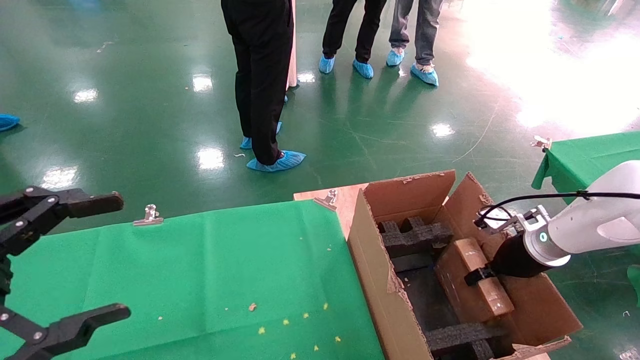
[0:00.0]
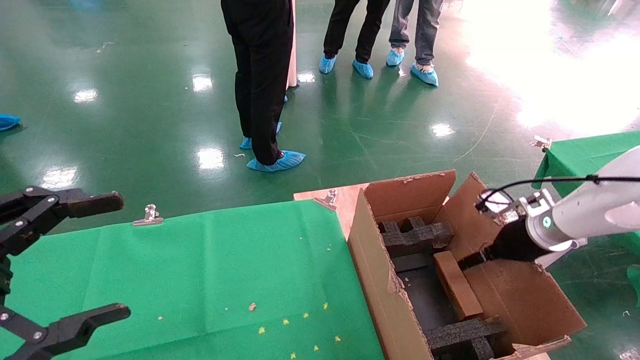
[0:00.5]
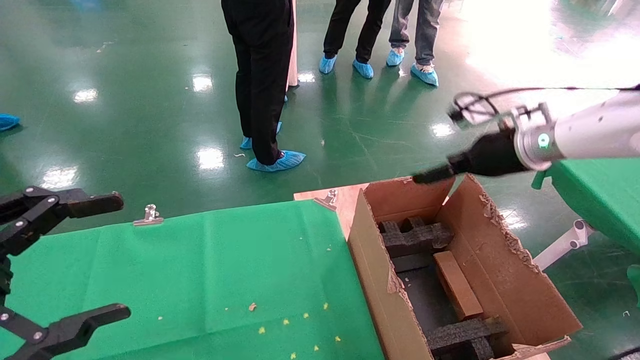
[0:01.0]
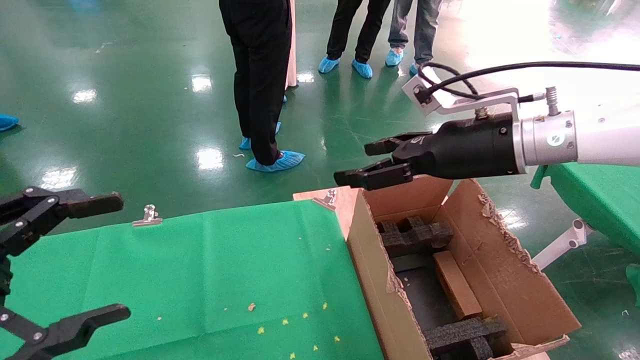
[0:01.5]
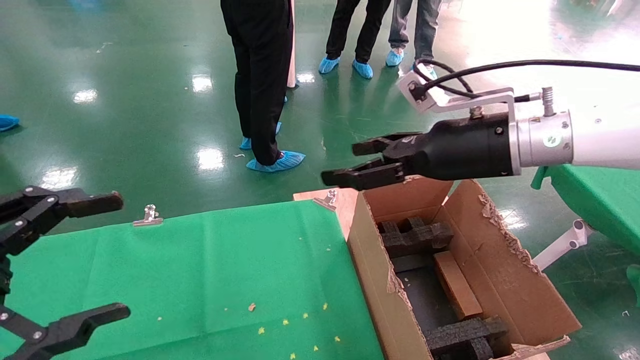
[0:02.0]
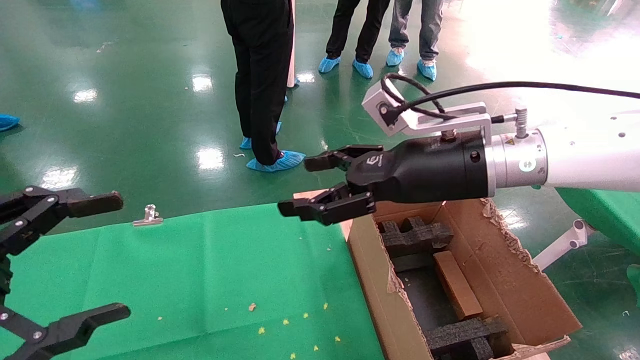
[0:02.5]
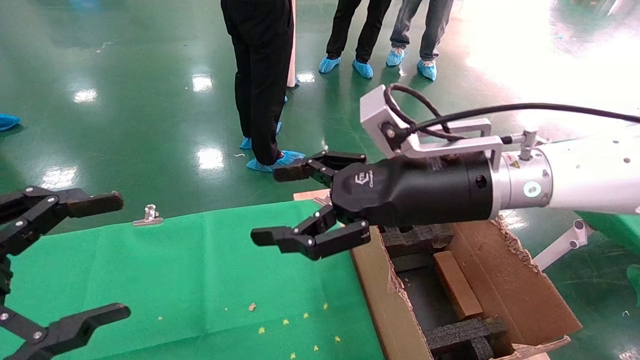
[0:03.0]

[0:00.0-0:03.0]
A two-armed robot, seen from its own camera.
Task of the whole recording: using a robotic arm to pick up a cardboard box and palace it the carton.
0:00.0 to 0:01.5: The right gripper is displaced upward and to the left by some 25 cm, and opens its fingers.
0:01.5 to 0:03.0: The right gripper heads to the left and backward, covering some 10 cm.
